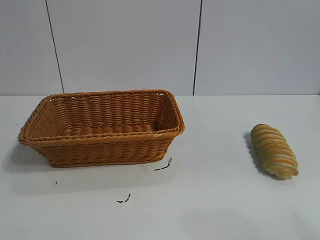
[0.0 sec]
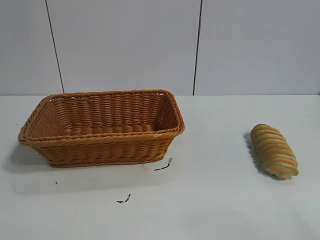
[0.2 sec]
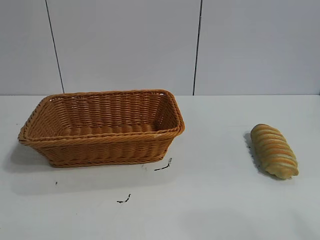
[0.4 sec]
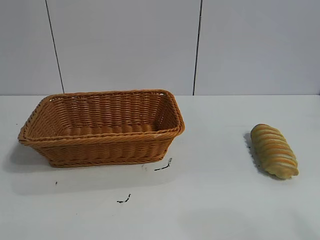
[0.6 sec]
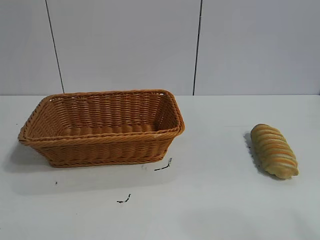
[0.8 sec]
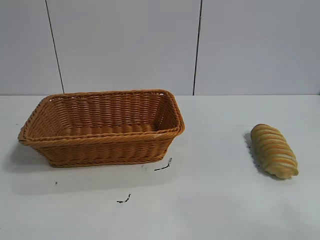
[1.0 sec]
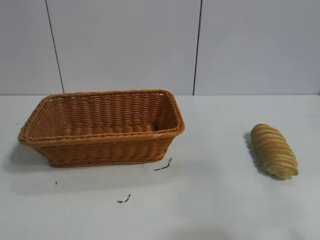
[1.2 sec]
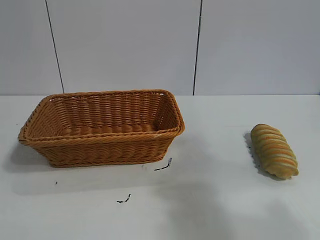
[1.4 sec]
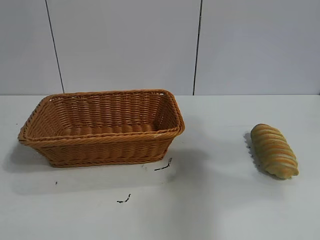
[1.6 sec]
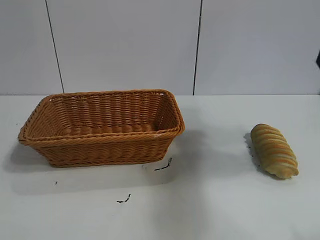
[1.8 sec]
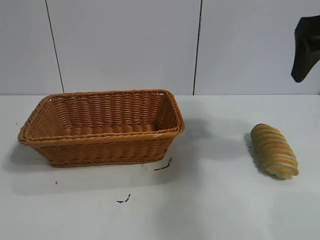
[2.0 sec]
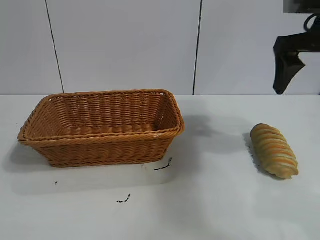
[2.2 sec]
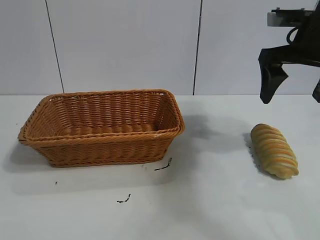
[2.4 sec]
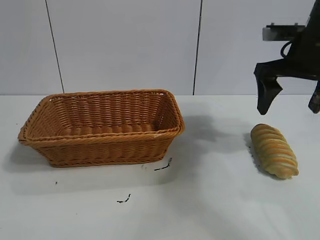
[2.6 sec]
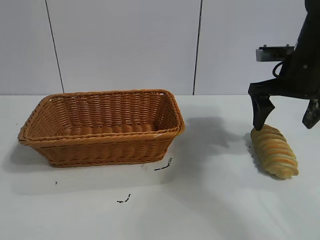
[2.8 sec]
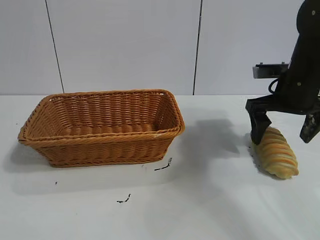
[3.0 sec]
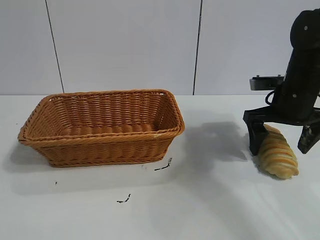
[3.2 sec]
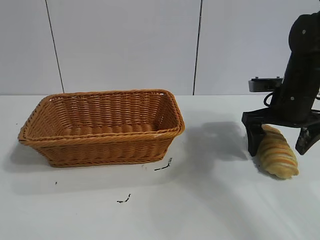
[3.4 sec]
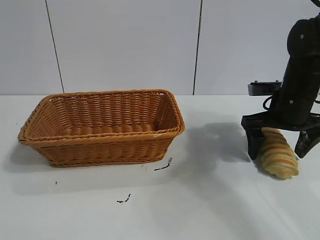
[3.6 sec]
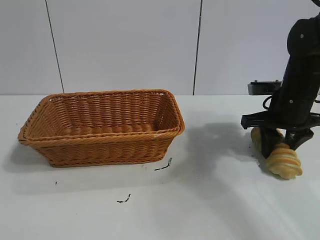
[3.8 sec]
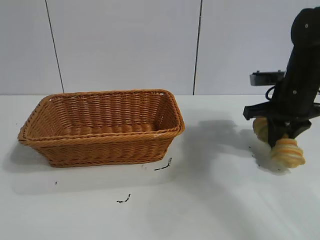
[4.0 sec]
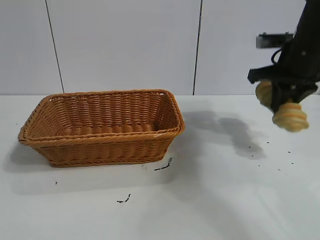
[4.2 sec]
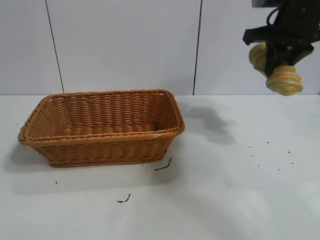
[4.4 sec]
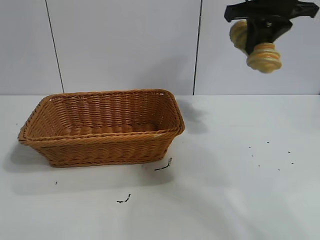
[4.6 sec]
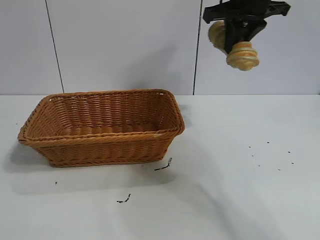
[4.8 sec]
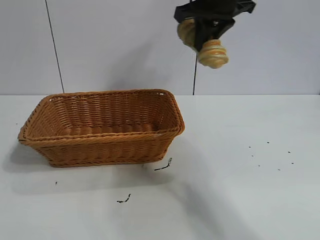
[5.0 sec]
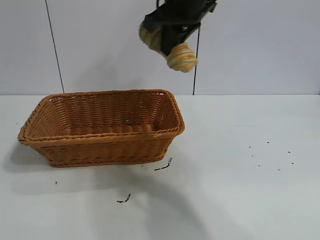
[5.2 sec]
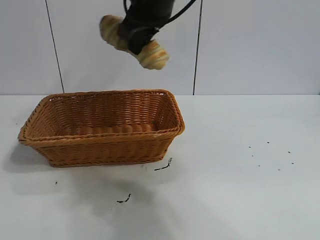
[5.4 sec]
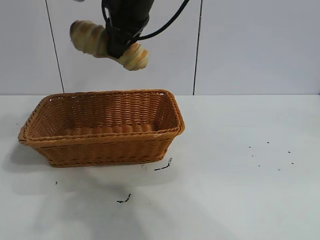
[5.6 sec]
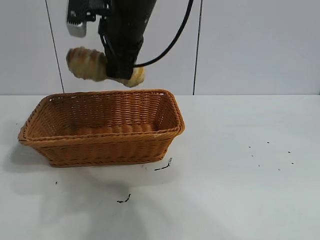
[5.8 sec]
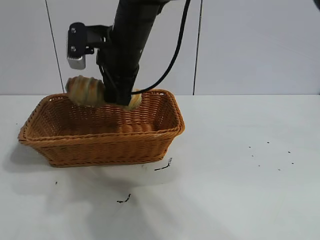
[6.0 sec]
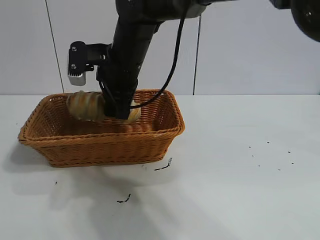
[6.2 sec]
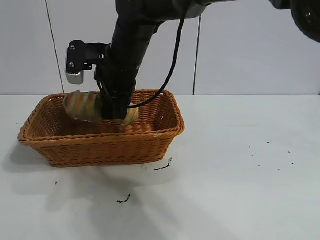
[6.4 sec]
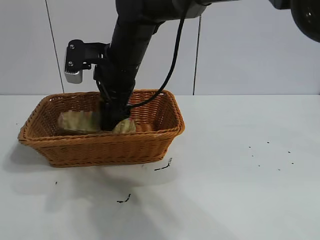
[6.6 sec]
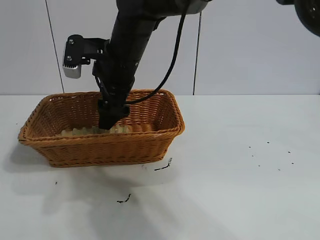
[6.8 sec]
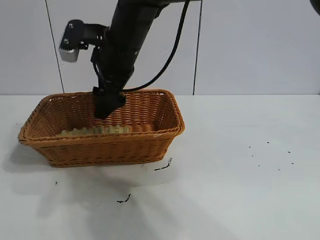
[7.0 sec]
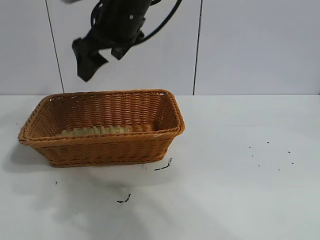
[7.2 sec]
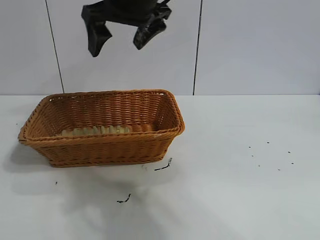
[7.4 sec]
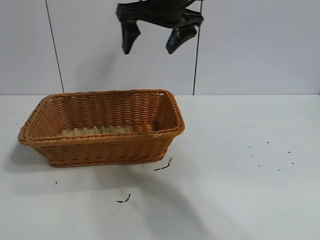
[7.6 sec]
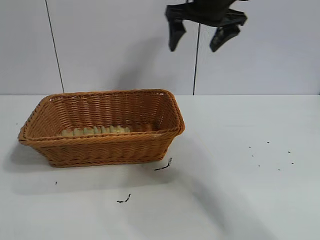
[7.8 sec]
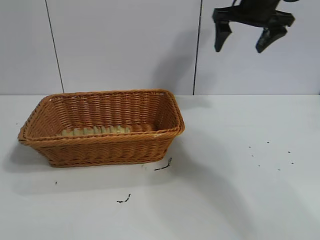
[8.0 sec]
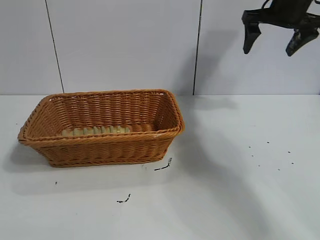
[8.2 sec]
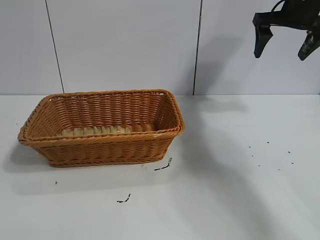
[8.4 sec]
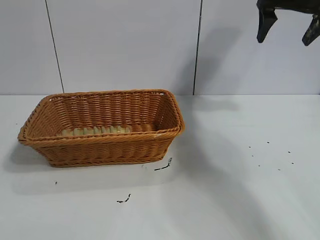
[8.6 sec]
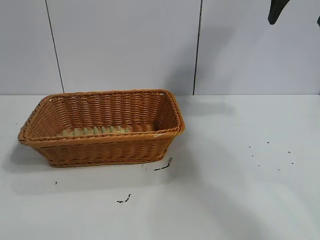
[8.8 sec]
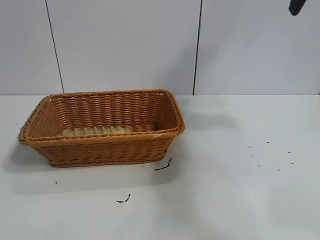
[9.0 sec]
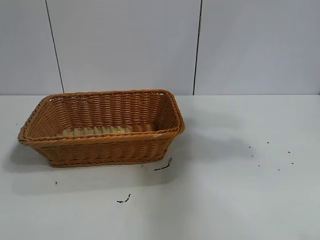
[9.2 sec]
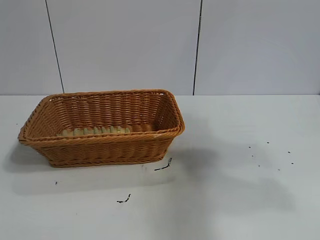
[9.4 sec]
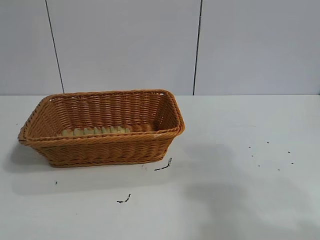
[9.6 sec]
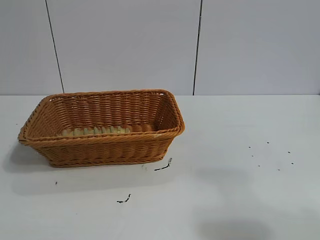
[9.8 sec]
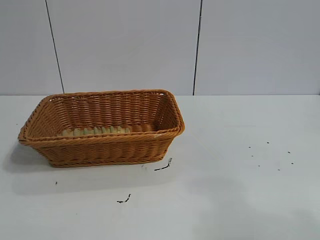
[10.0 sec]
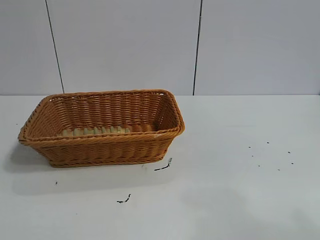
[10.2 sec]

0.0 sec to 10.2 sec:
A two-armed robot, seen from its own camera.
Task of the whole recording: pick up the long bread and put it into the basket.
Step, 1.8 sec to 3.8 sec: Grasp the long bread with right gripper.
Step, 4.2 sec to 7.0 sec: Place the long bread in the basket with right gripper.
